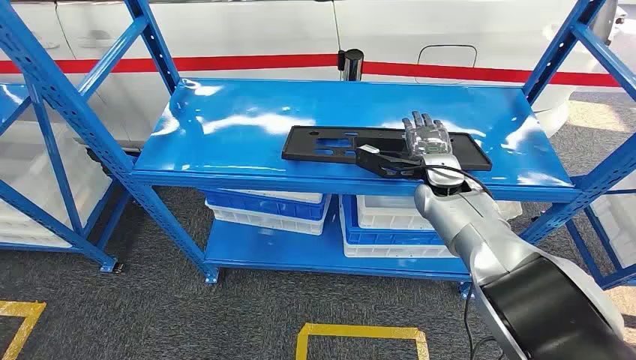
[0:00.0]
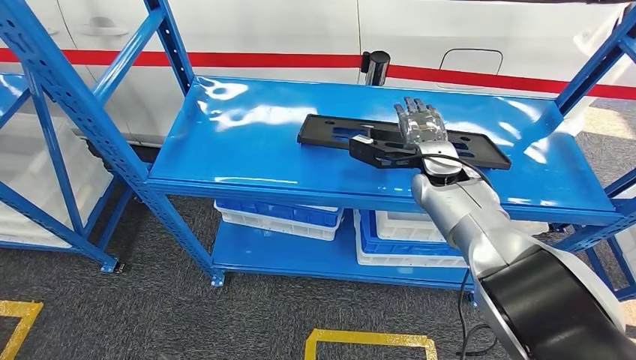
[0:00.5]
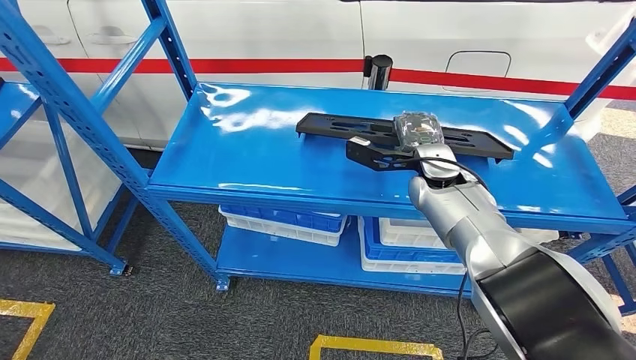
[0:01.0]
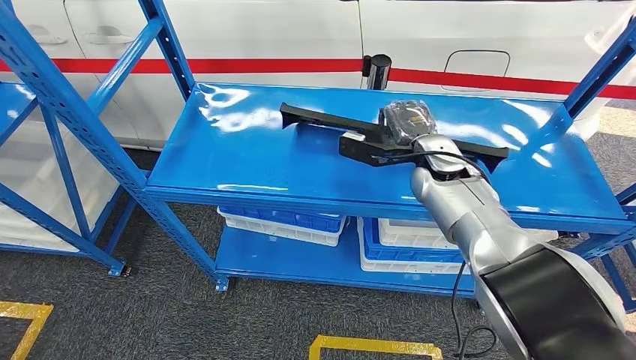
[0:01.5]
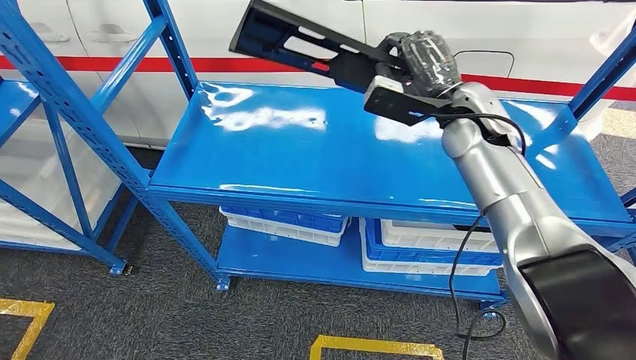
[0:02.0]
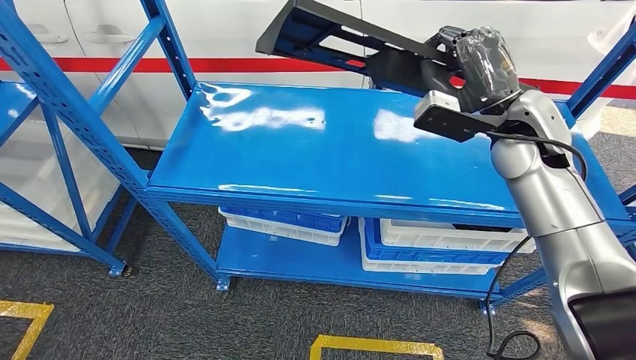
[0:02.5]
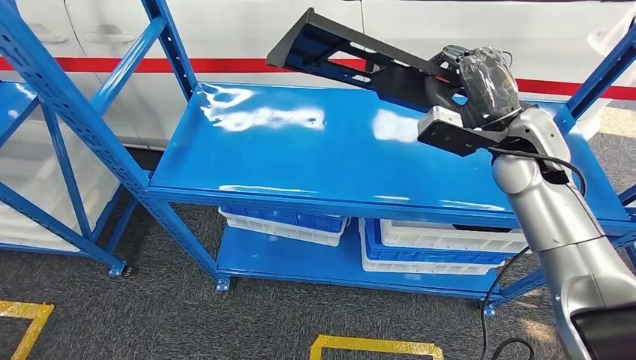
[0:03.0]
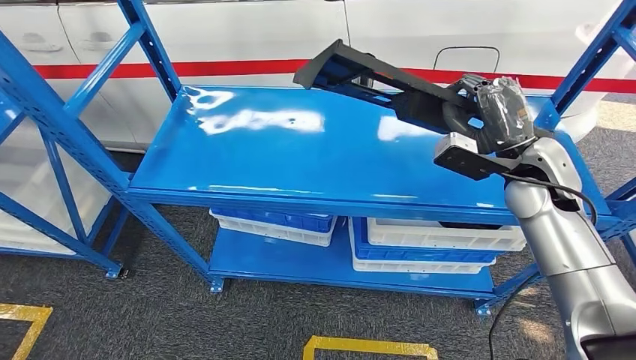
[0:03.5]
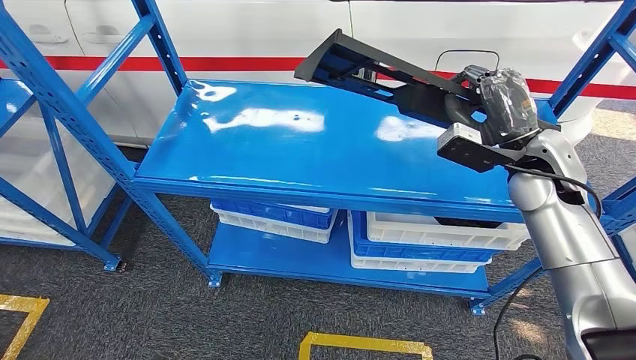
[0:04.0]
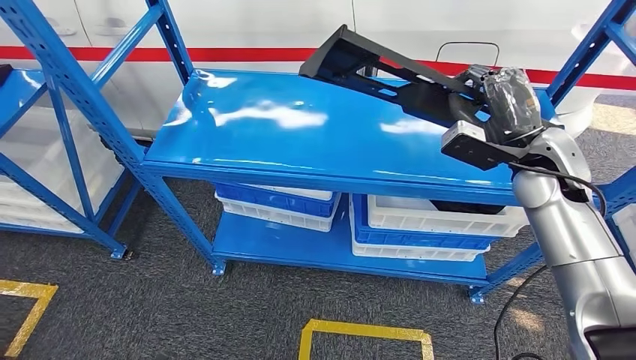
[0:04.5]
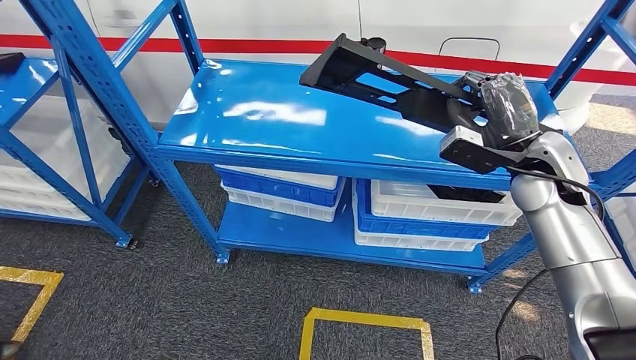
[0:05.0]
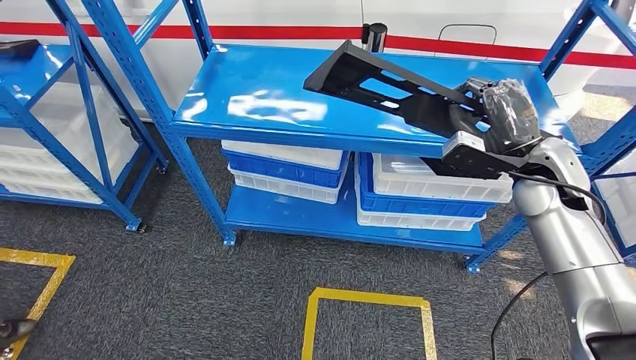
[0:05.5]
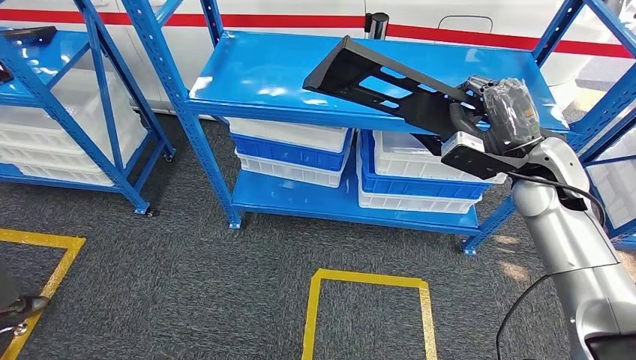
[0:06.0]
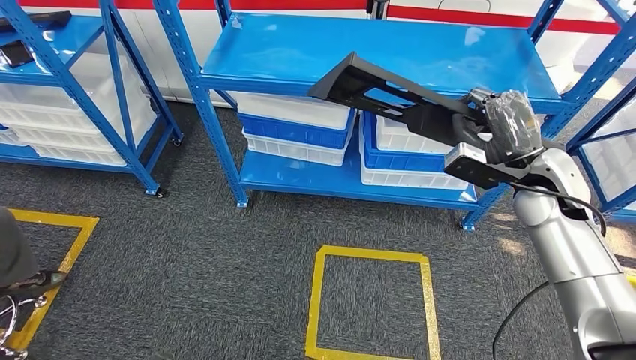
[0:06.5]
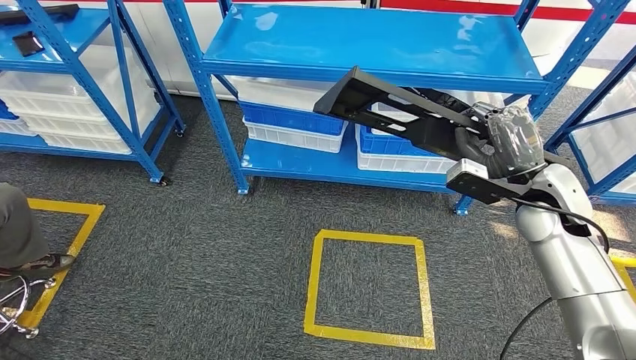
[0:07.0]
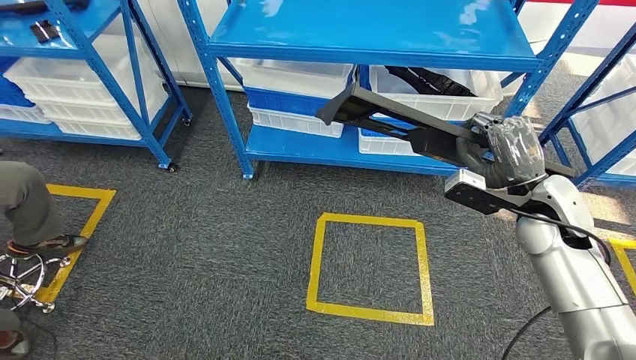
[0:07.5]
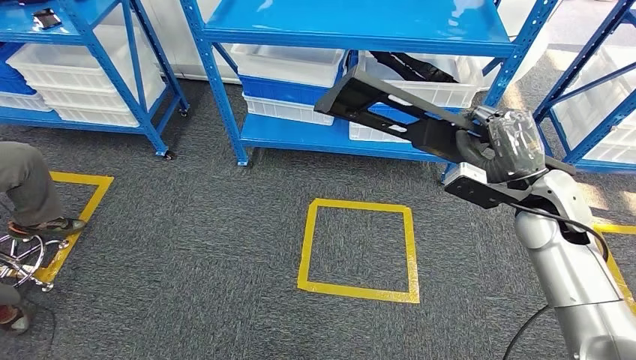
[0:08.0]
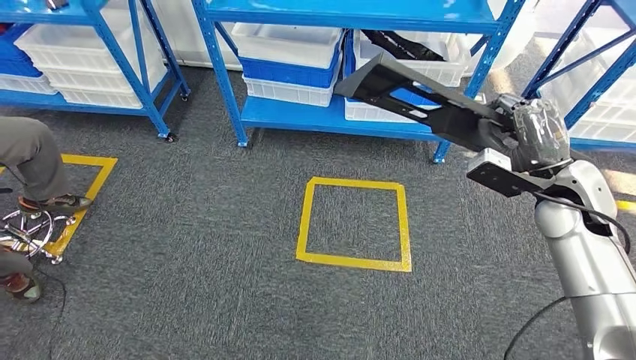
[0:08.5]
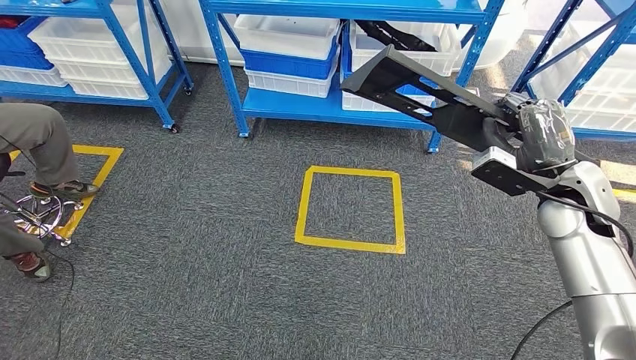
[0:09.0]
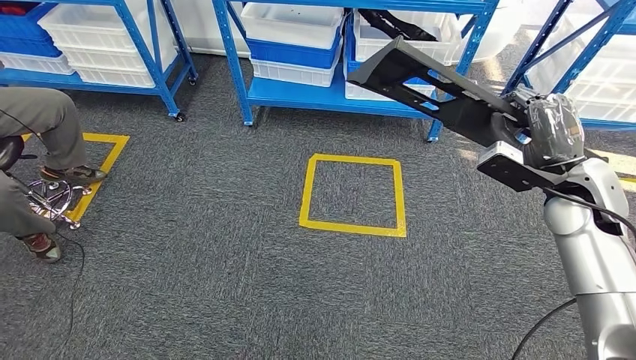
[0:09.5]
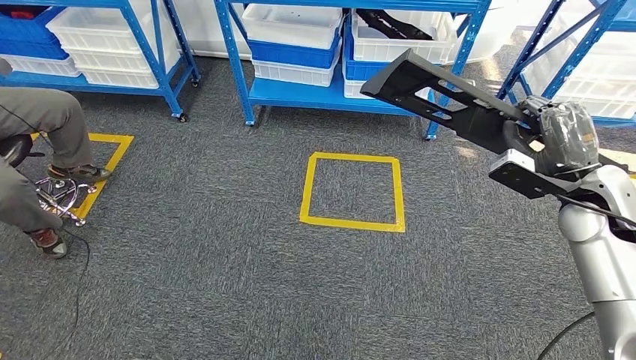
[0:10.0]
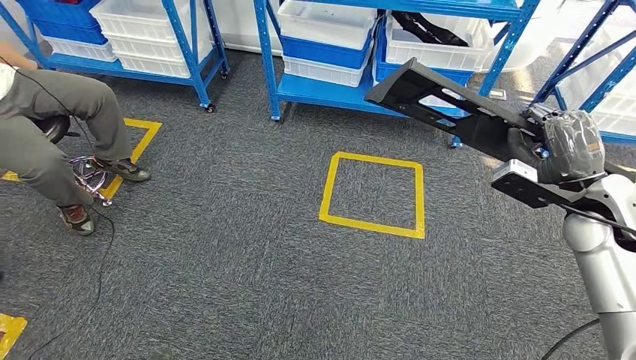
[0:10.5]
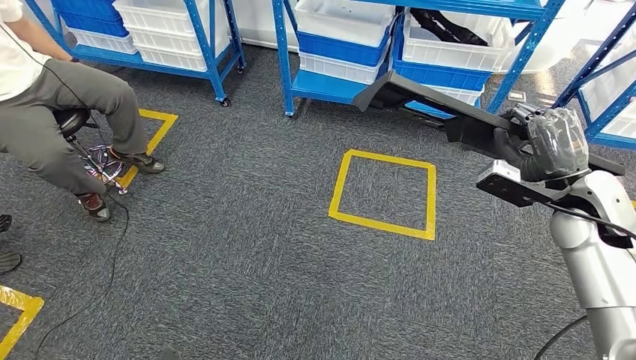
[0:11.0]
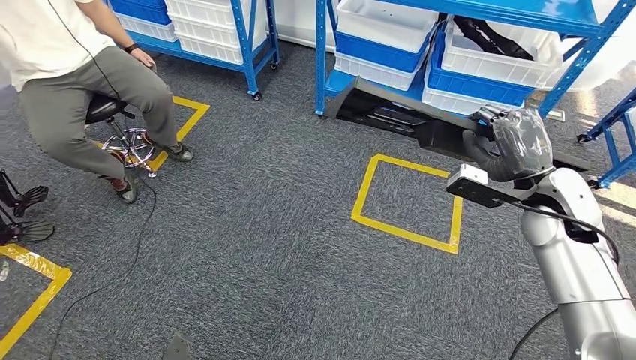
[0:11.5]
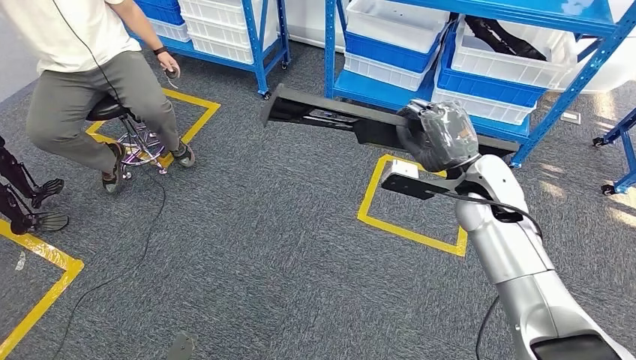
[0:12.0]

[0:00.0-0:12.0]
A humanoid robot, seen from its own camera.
Step, 0:00.0 to 0:05.0: Pick up the large material from the shelf.

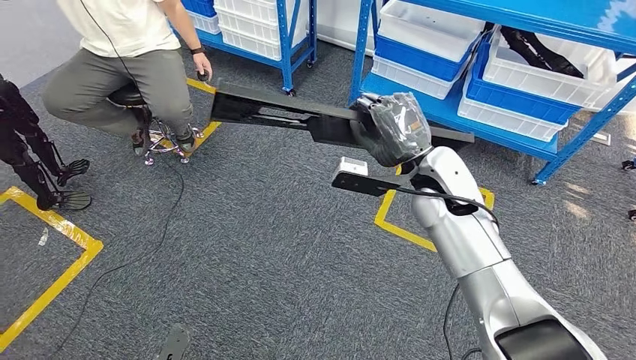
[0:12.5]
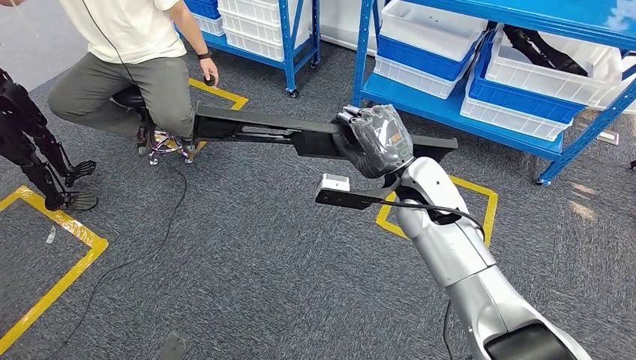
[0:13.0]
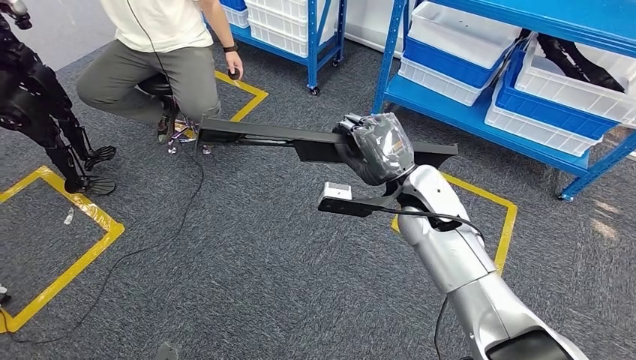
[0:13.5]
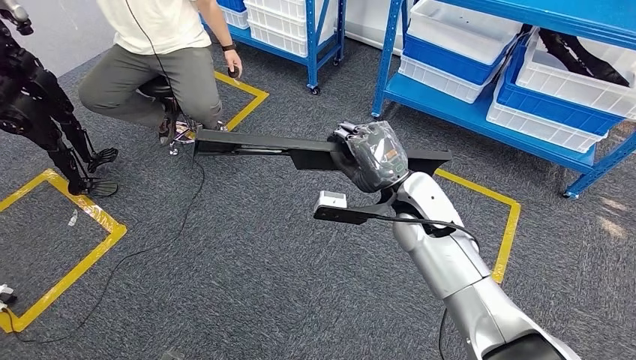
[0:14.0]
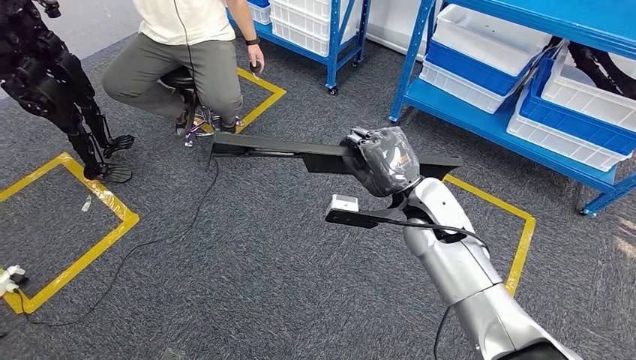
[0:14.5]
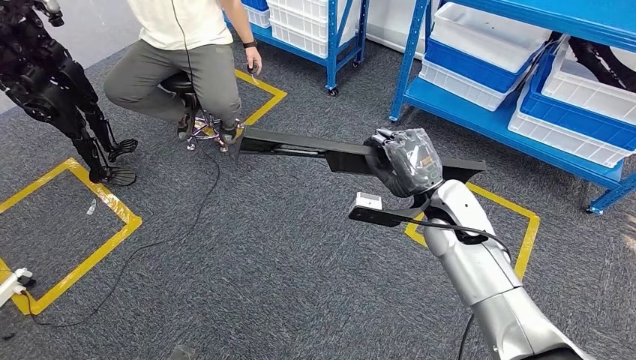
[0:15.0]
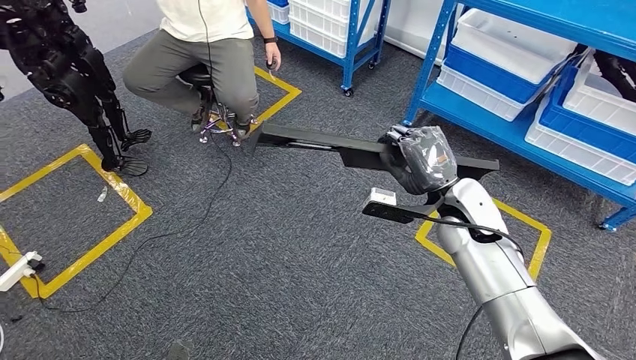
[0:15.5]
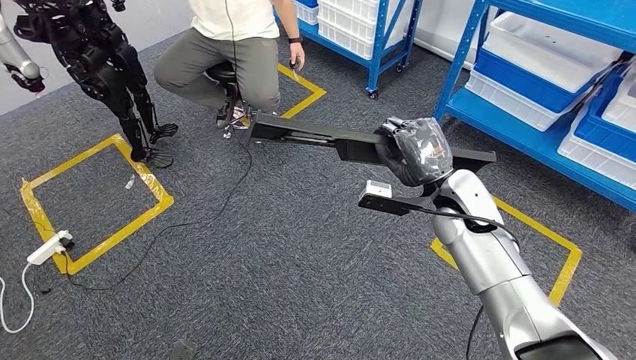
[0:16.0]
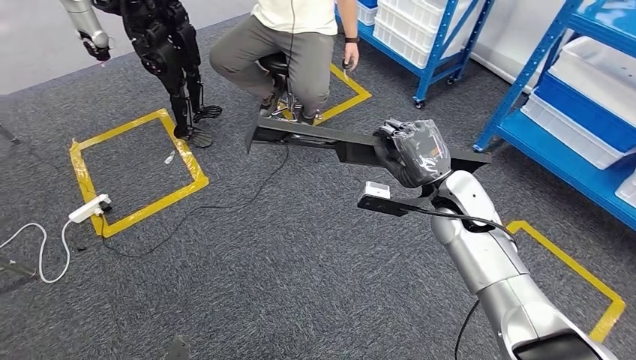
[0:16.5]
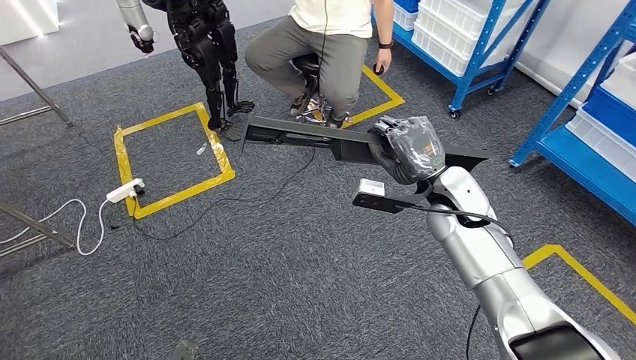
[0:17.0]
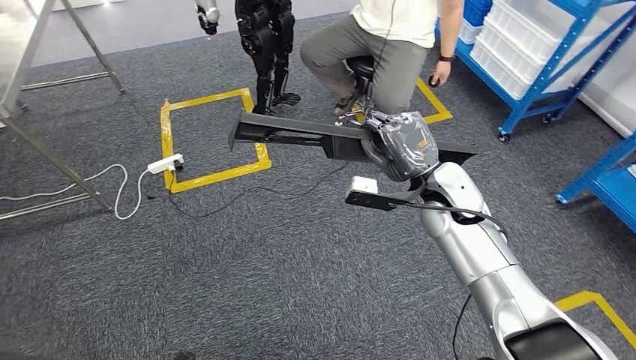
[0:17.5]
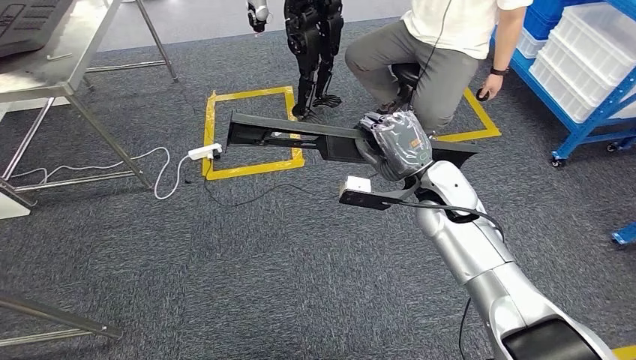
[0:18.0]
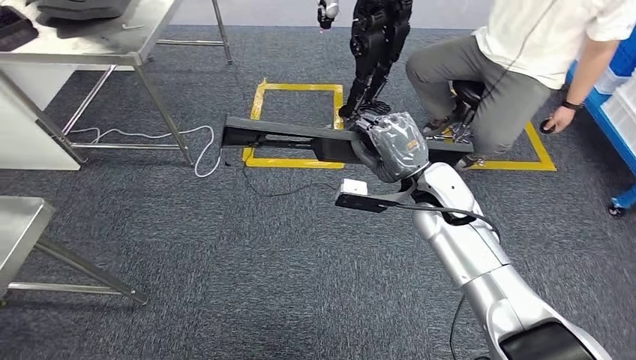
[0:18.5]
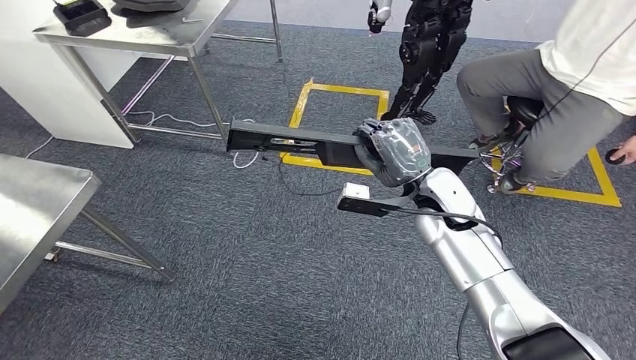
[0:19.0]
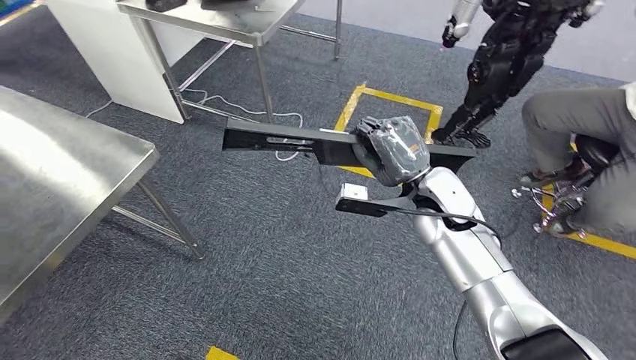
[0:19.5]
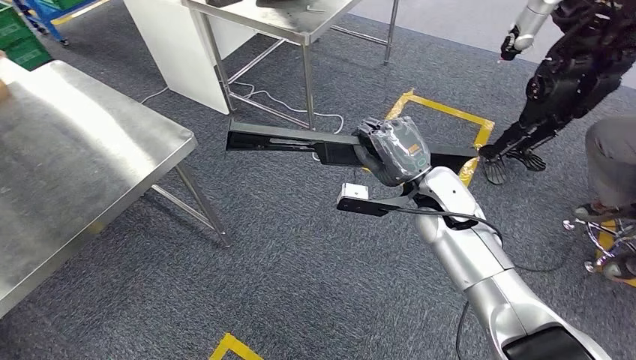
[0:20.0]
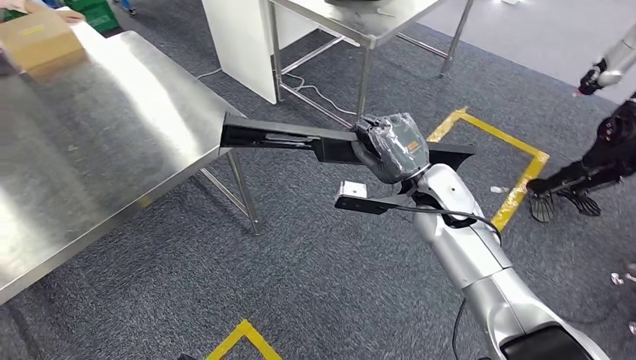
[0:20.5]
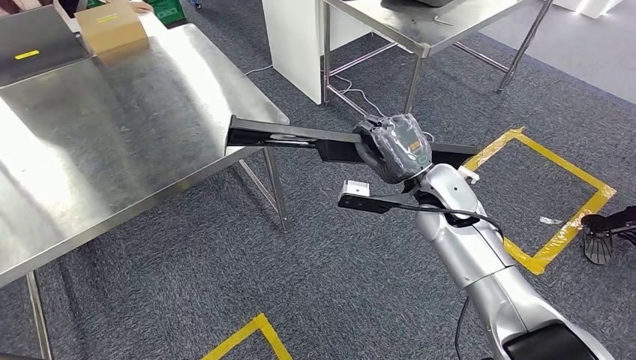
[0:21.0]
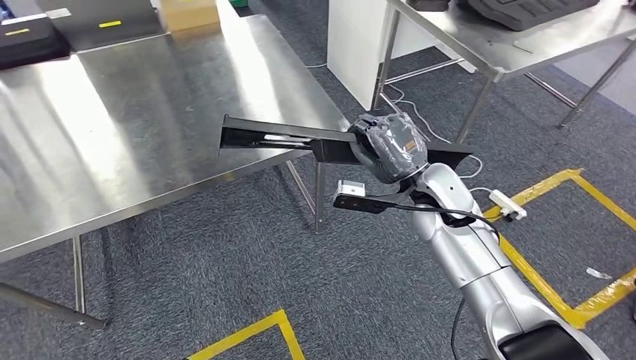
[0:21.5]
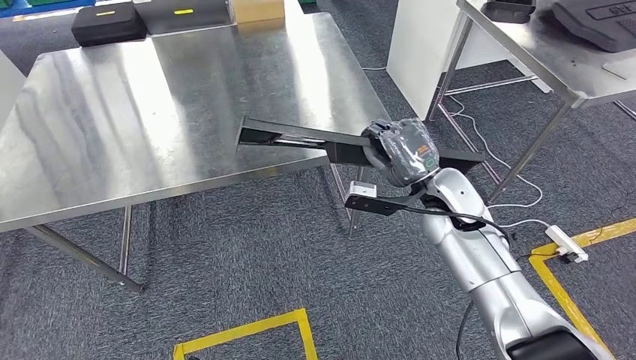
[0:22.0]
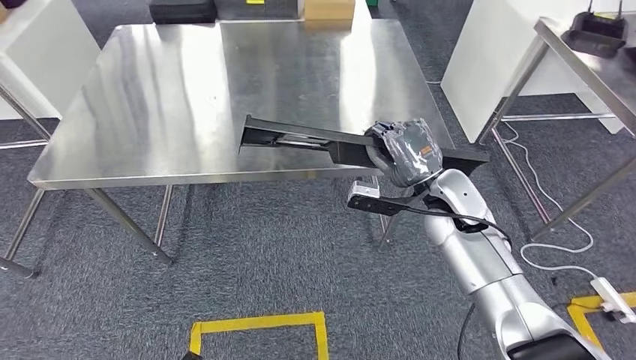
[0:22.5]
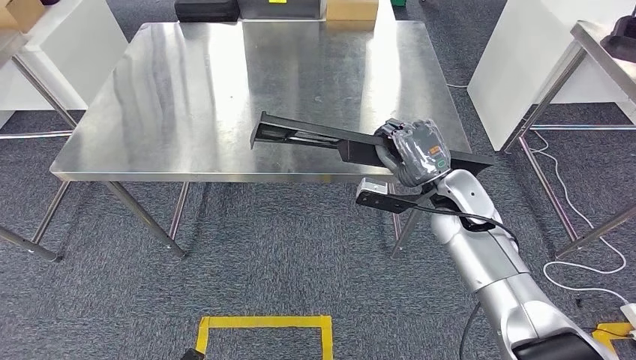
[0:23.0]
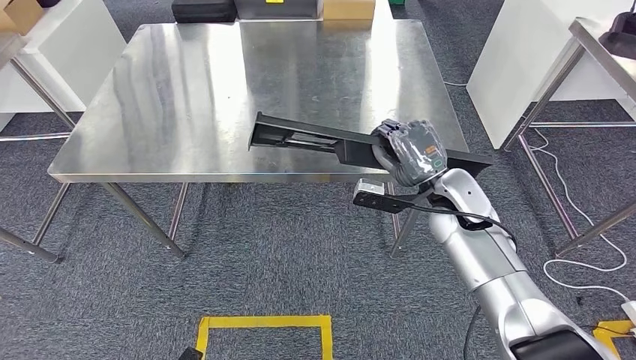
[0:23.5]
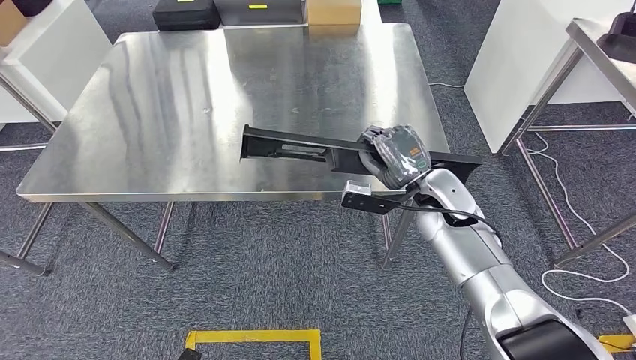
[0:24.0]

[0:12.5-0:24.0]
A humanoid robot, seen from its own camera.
Step, 0:12.5 to 0:23.0: Move the large material to the workbench.
